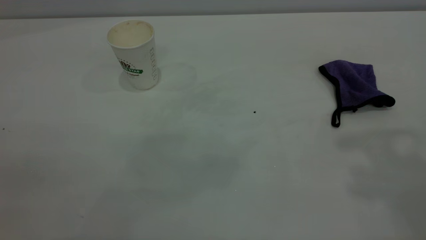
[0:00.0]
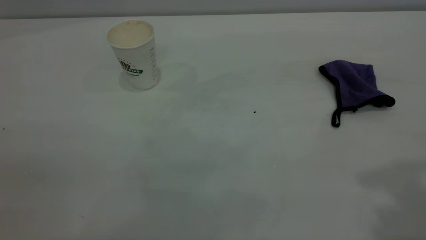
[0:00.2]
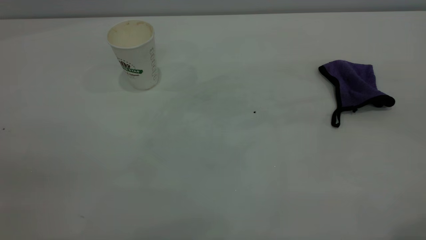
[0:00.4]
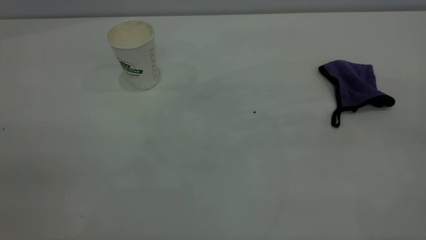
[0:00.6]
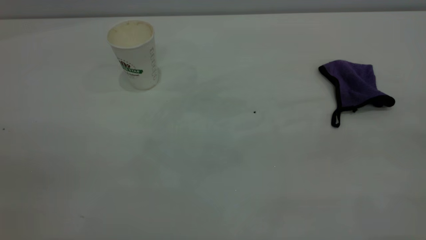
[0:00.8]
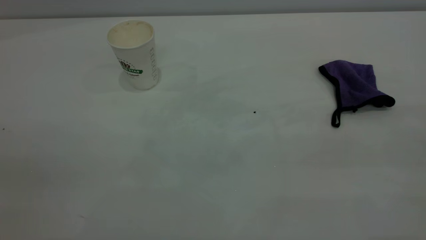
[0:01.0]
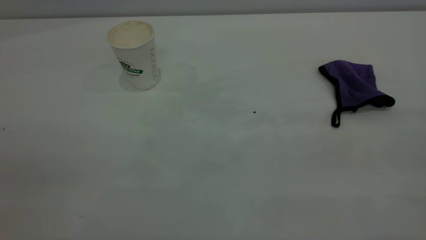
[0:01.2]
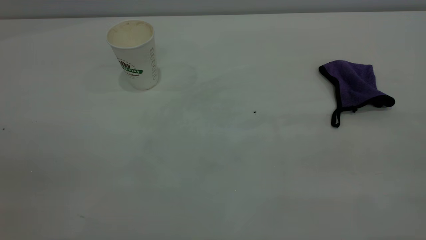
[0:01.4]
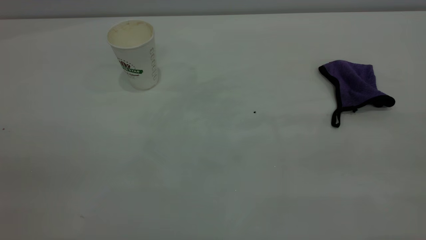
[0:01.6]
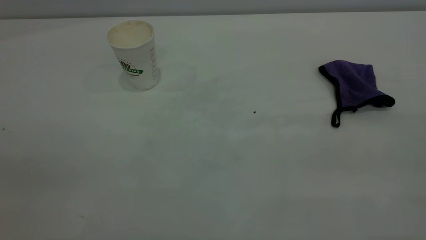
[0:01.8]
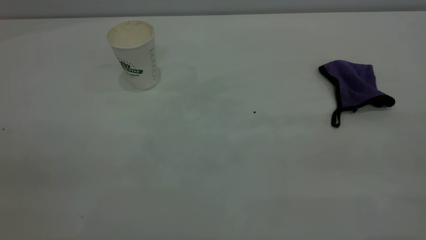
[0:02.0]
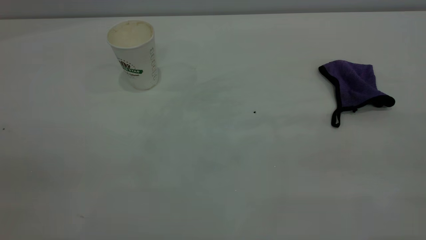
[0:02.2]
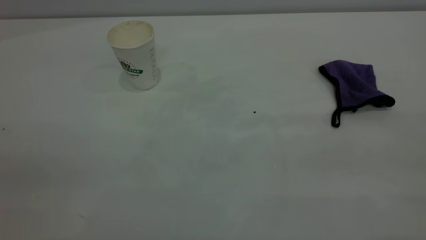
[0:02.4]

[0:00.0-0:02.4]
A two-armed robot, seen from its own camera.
Task of the whole recording: the left gripper pick up the fallen cup and place it upright, the right gripper grasp the purple rag and wipe the coffee stain on the table, the right gripper put the purple rag back in its original position.
0:01.2 to 0:02.4: The two grippers keep their place.
